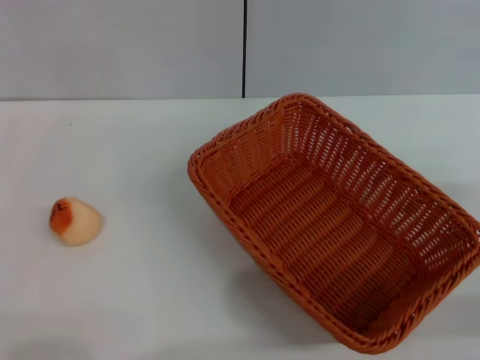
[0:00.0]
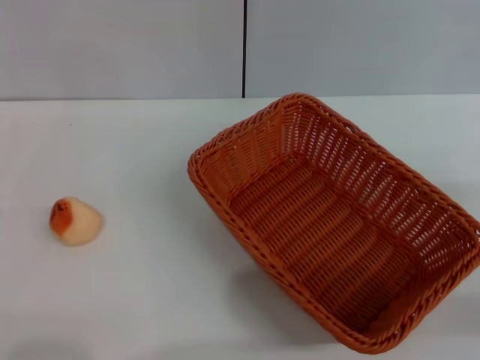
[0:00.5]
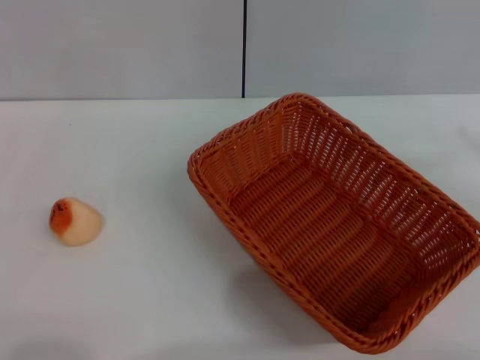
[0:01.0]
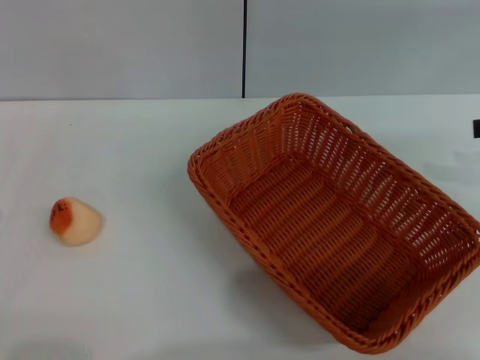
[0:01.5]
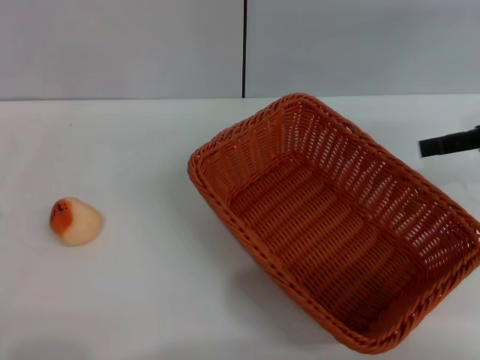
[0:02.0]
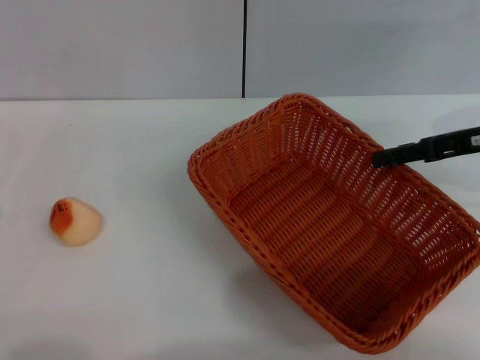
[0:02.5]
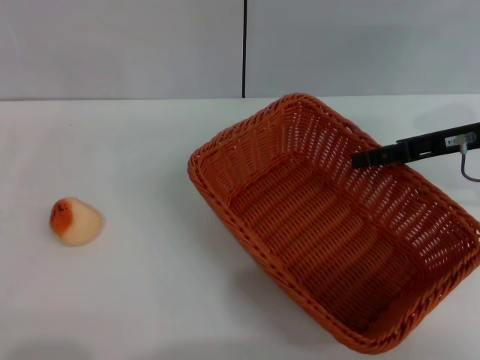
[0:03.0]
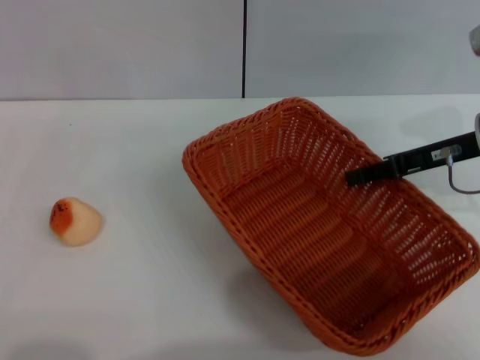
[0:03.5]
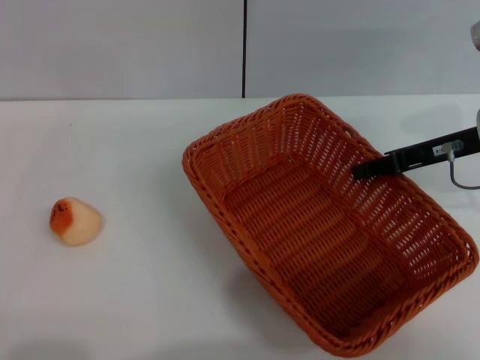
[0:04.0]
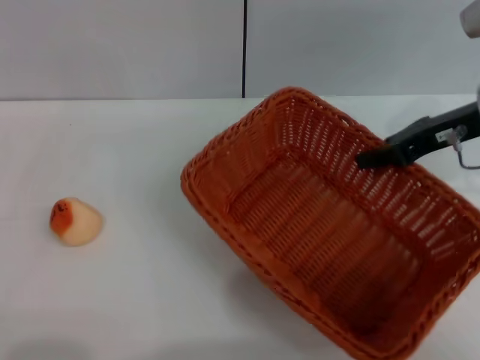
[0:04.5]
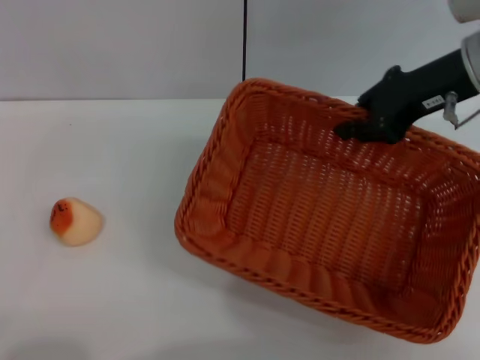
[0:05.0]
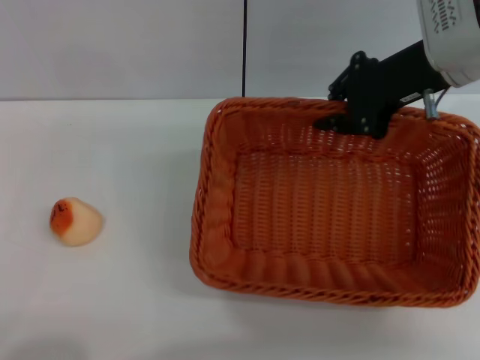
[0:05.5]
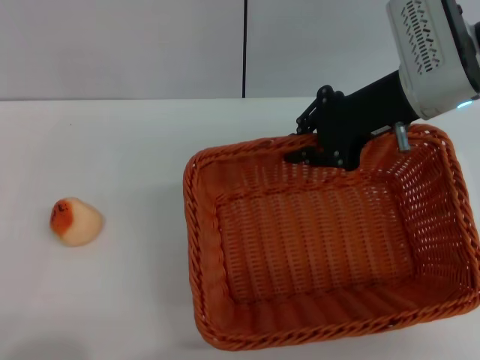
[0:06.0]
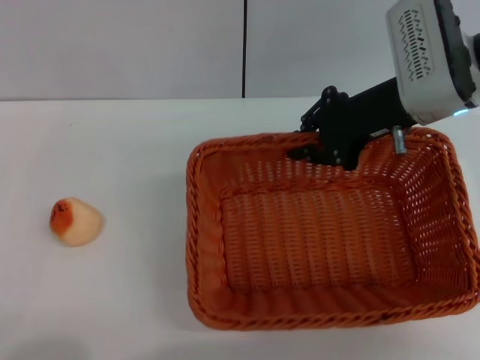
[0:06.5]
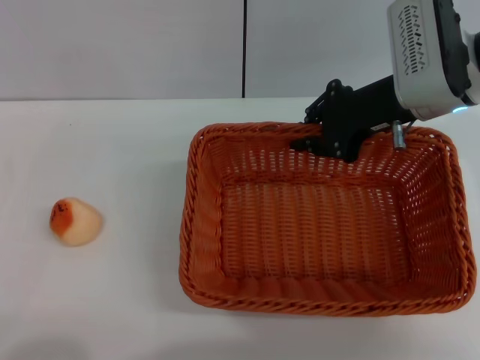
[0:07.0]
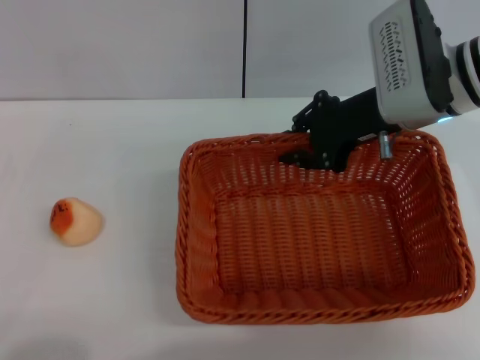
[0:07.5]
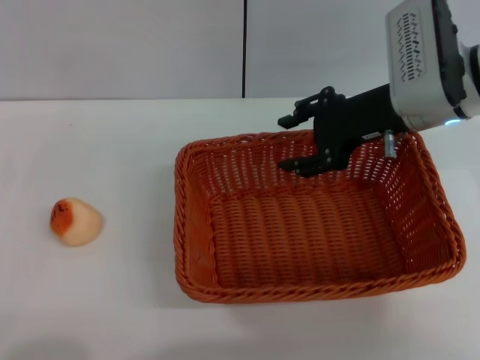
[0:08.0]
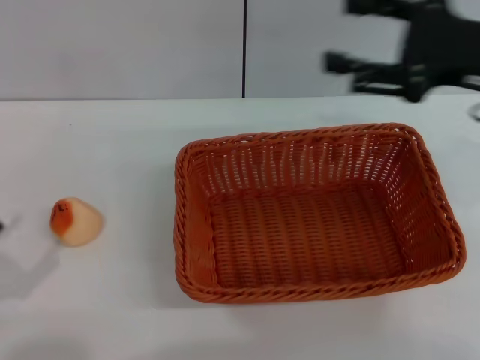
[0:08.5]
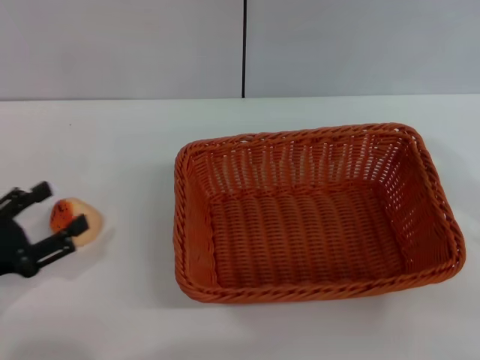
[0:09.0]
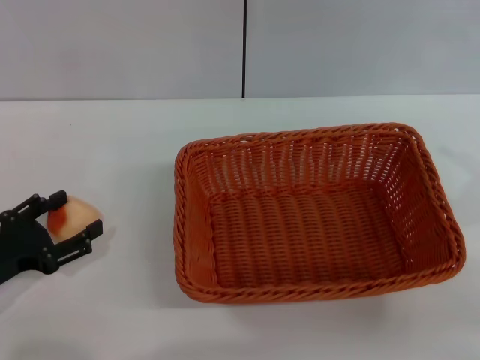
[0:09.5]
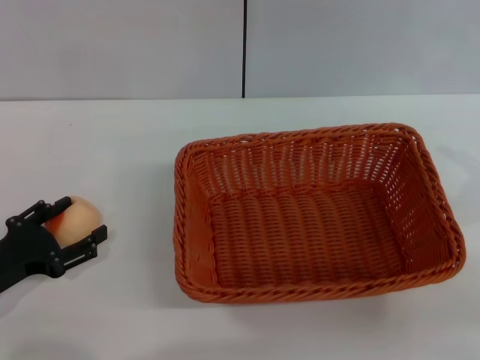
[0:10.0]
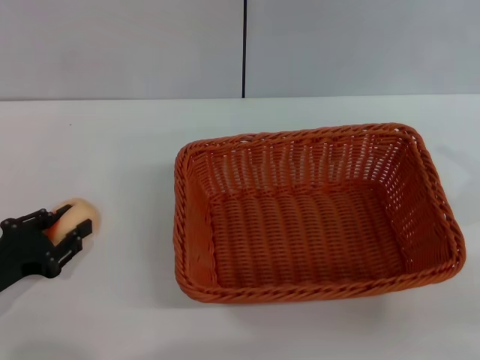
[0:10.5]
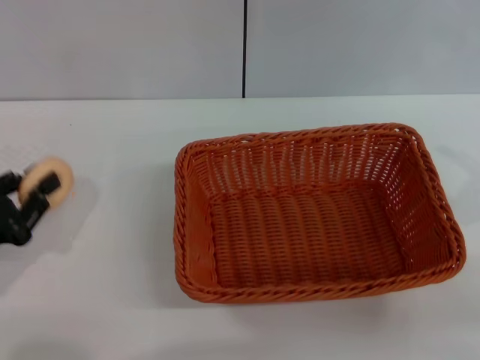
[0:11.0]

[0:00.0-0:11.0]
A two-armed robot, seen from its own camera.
Step, 0:00.0 to 0:08.0: Move the basket to the center of view with the right gripper.
0:00.0 to 0:02.0: The right gripper is displaced forward and upward by some 15 cm.
0:02.0 to 0:03.5: The right gripper goes some 10 cm to the left and downward.
0:03.5 to 0:05.5: The right gripper moves upward and to the left, some 10 cm, and closes. The left gripper moves backward, some 10 cm.
0:05.5 to 0:07.5: The right gripper is displaced downward by roughly 5 cm.
0:07.5 to 0:09.0: The right gripper travels backward and to the right by about 25 cm, and opens its fingers; the left gripper goes roughly 10 cm forward.
0:09.0 to 0:11.0: The left gripper closes up.

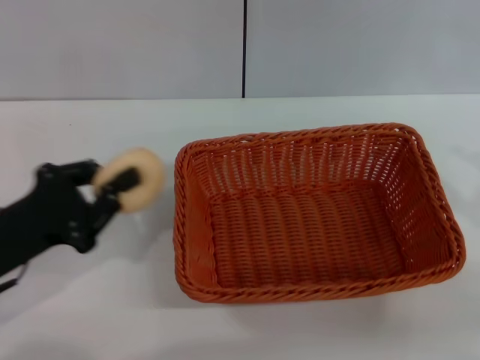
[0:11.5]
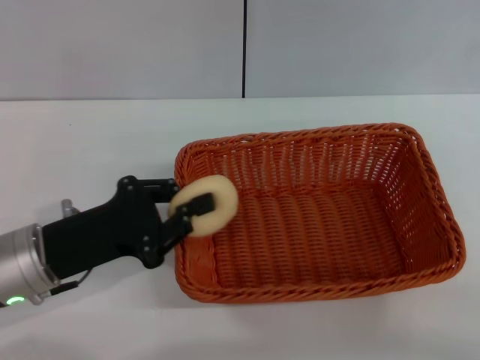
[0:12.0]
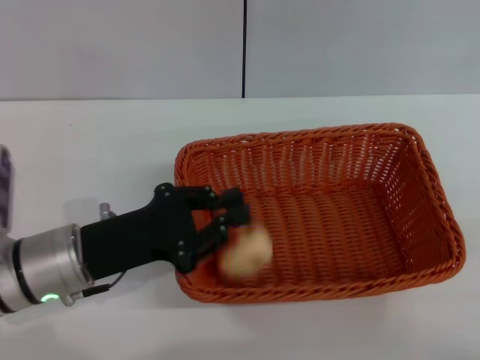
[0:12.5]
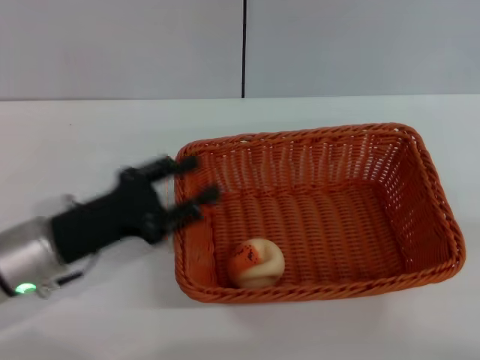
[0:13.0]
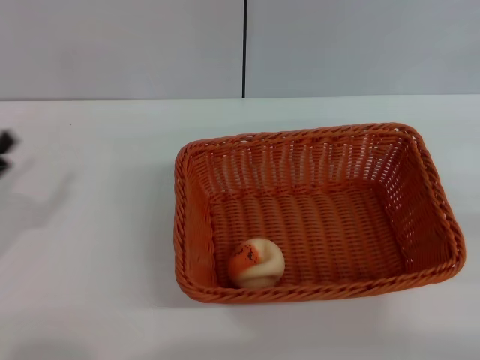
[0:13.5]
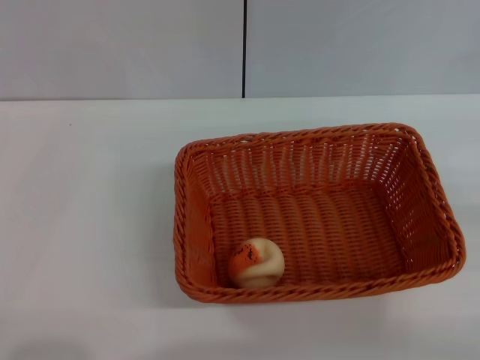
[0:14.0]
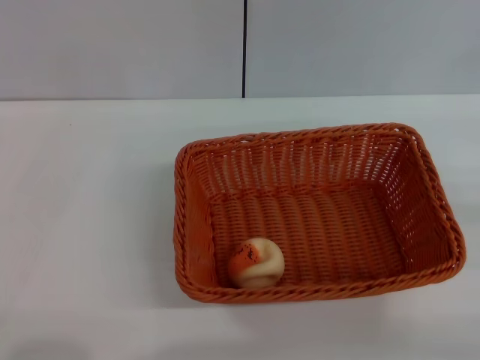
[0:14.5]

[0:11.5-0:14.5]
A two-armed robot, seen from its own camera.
Step, 0:11.5 to 0:12.5: Place the egg yolk pastry into the basket with the left gripper.
0:11.5 to 0:13.0: Both grippers move to the right, about 5 cm.
0:13.0 to 0:14.5: The left gripper is displaced to the left and backward by some 20 cm, and opens.

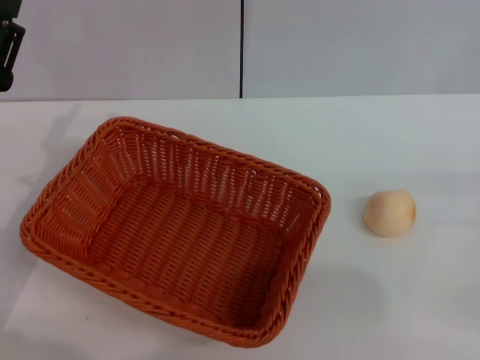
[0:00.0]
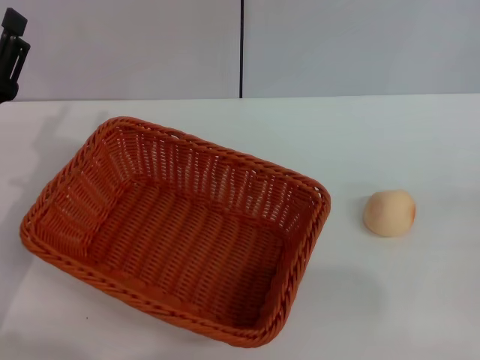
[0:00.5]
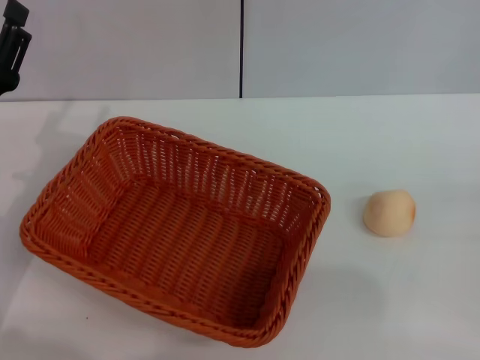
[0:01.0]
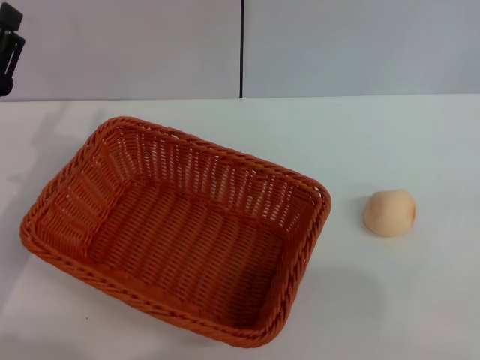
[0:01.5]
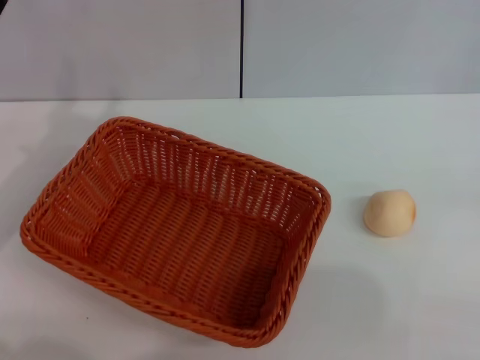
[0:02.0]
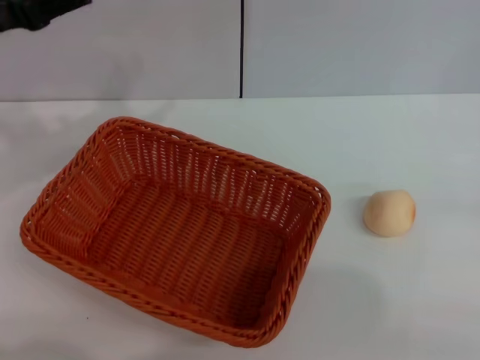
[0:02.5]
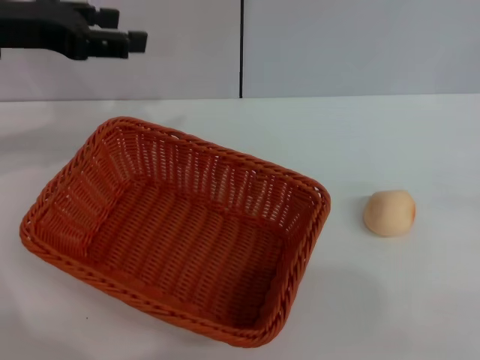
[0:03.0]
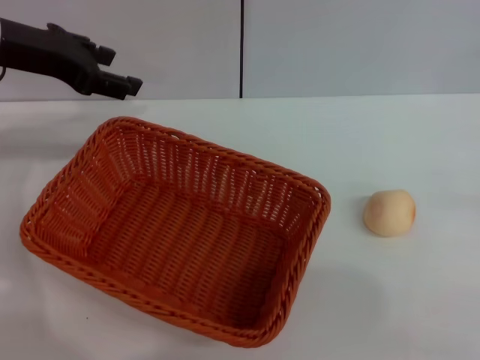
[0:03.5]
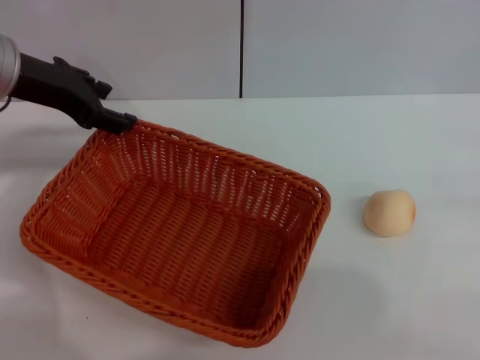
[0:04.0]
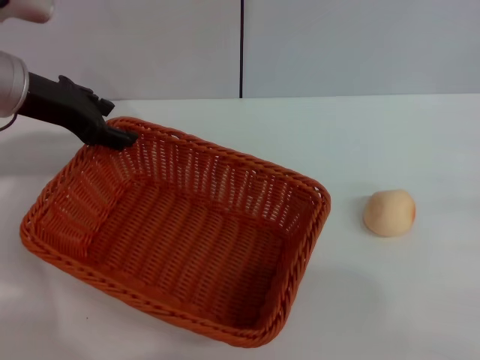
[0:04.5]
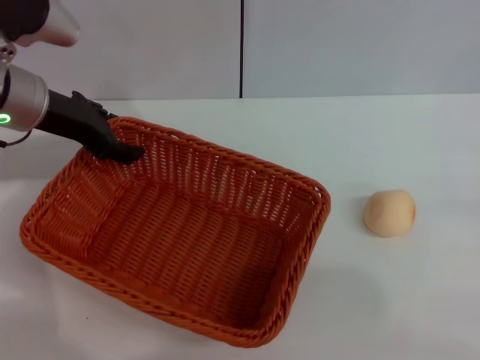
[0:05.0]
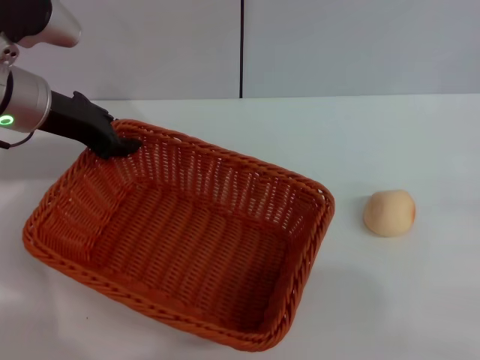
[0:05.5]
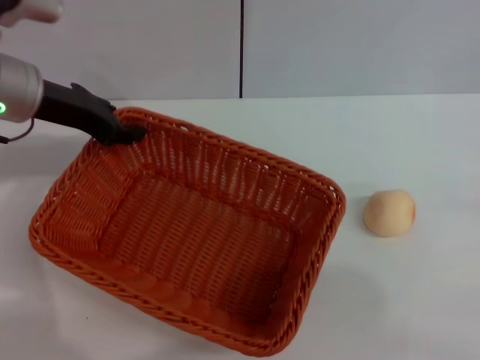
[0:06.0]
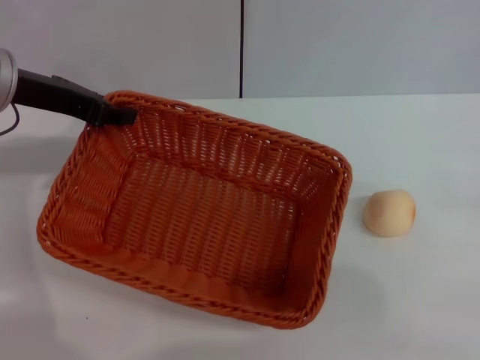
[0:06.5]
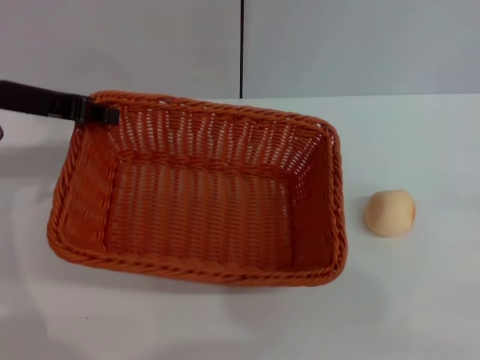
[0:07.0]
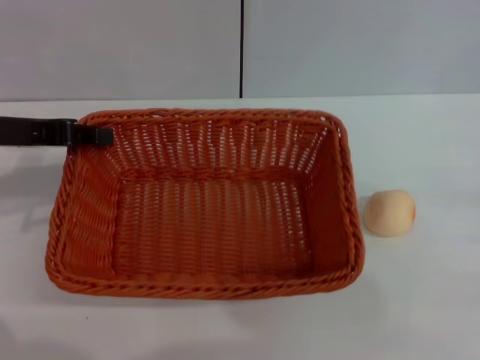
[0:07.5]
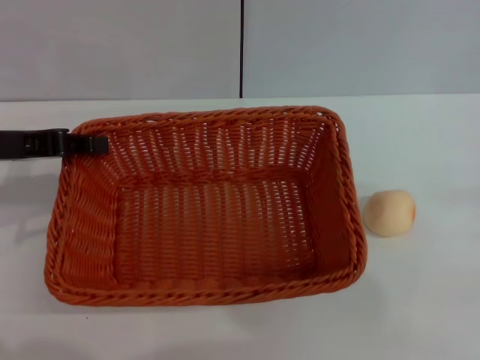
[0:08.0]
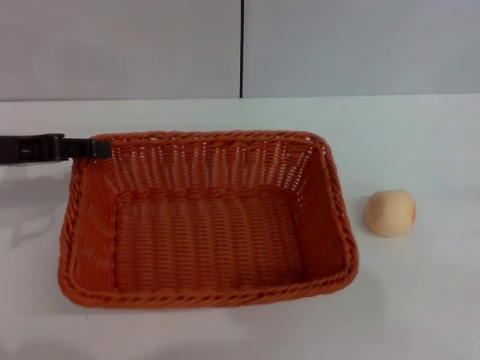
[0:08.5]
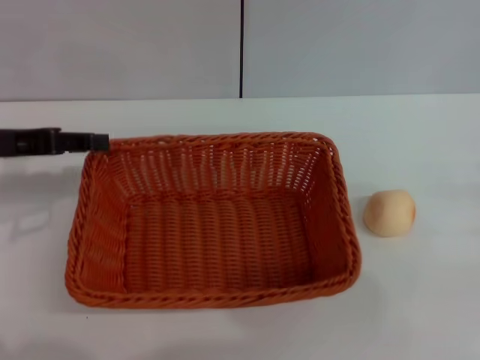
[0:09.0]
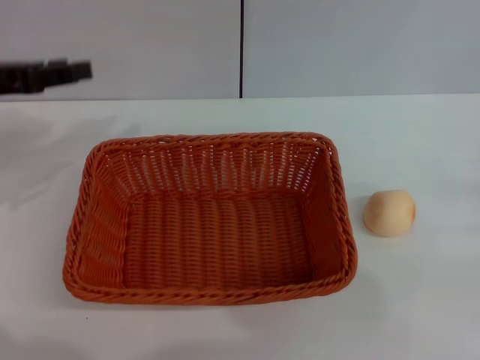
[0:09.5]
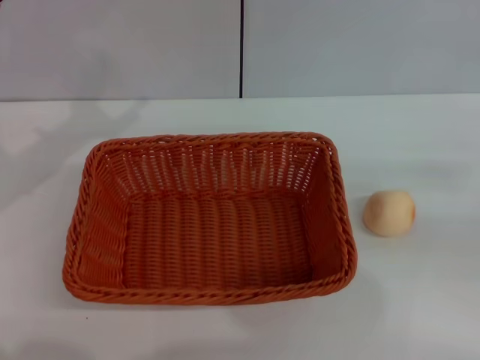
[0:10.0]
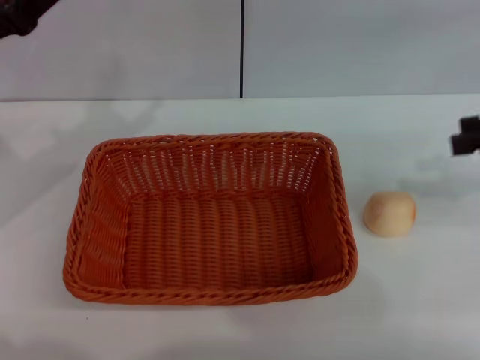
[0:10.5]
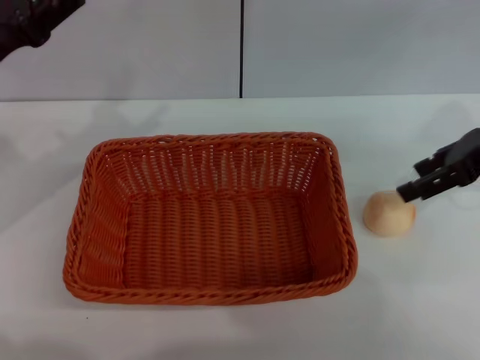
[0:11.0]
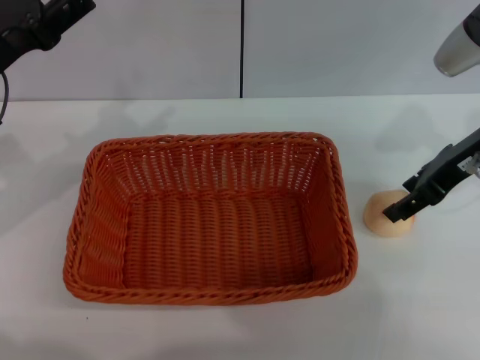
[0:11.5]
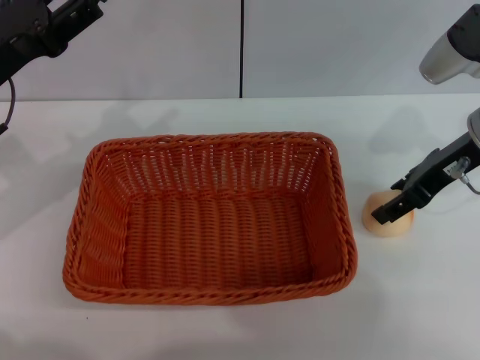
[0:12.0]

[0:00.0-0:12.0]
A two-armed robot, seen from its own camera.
Step, 0:00.0 to 0:09.0: Move the basket to the center of view with the left gripper.
0:00.0 to 0:02.0: The left gripper moves approximately 5 cm.
0:02.0 to 0:04.0: The left gripper shifts some 15 cm upward, forward and to the right.
0:04.0 to 0:06.0: The left gripper closes its fingers.
0:06.0 to 0:08.0: The left gripper moves backward and to the left, about 10 cm.
0:08.0 to 0:10.0: The right gripper moves upward, roughly 10 cm, while the left gripper opens up.
0:10.0 to 0:12.0: The right gripper goes some 20 cm to the left and forward. Meanwhile the left gripper ends up about 5 cm from where it was.
